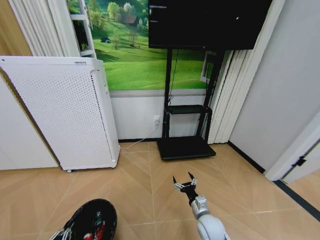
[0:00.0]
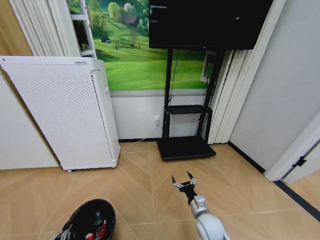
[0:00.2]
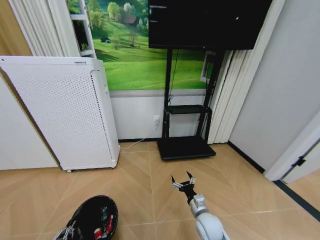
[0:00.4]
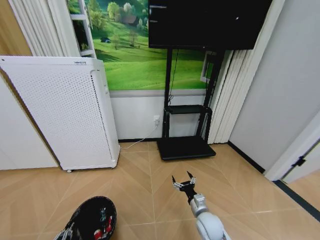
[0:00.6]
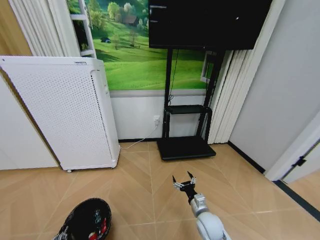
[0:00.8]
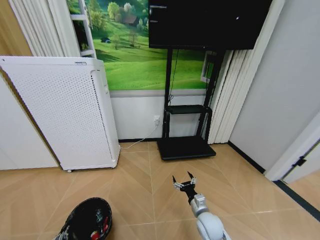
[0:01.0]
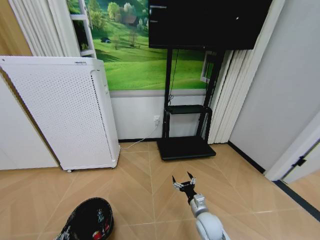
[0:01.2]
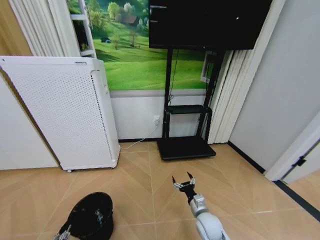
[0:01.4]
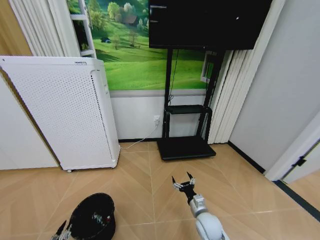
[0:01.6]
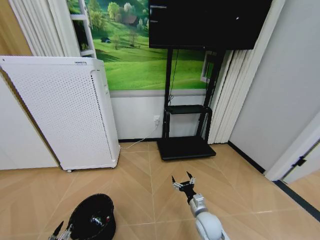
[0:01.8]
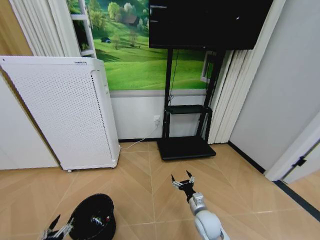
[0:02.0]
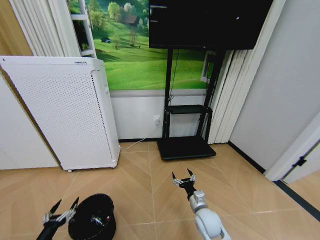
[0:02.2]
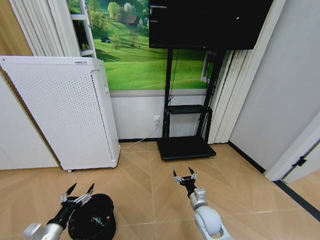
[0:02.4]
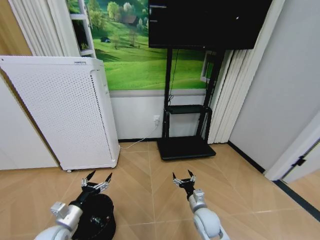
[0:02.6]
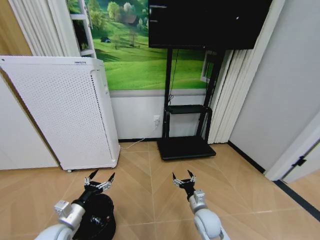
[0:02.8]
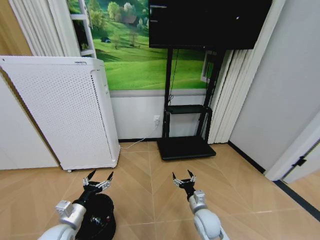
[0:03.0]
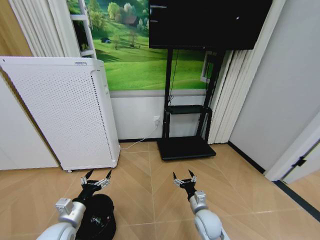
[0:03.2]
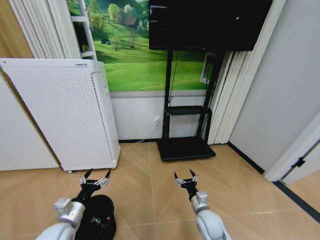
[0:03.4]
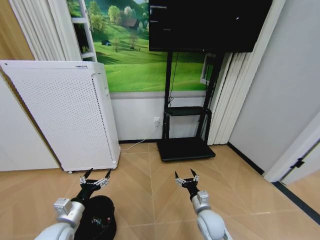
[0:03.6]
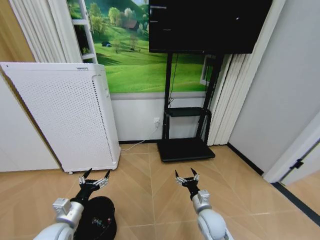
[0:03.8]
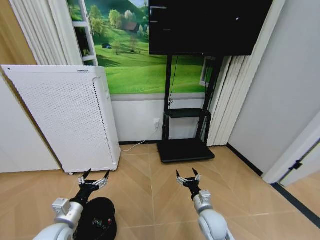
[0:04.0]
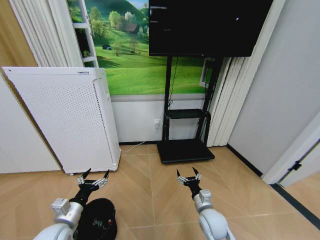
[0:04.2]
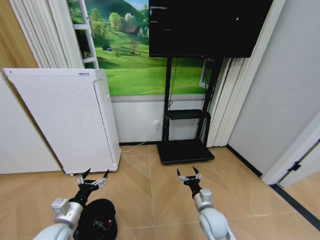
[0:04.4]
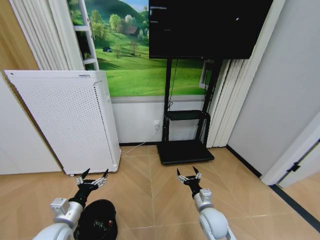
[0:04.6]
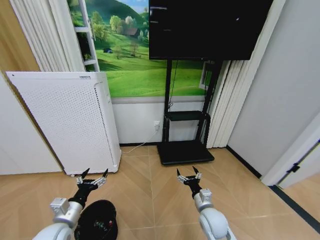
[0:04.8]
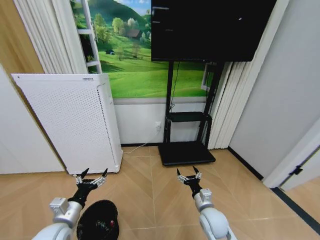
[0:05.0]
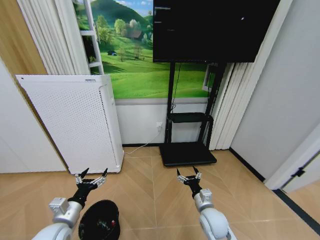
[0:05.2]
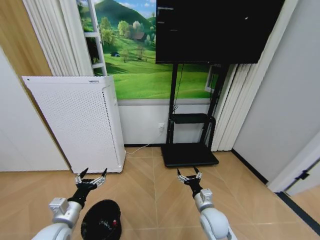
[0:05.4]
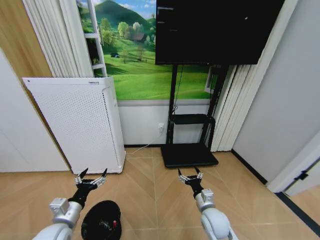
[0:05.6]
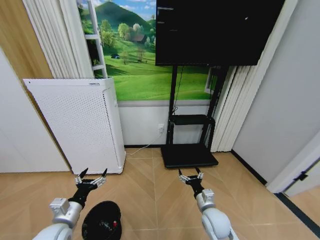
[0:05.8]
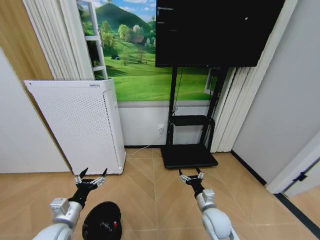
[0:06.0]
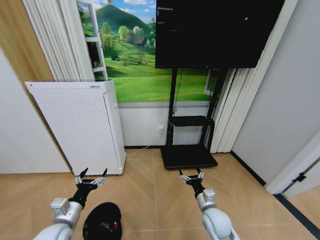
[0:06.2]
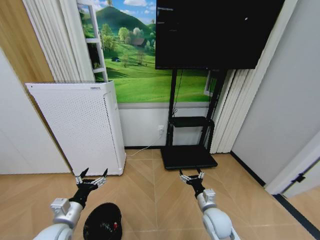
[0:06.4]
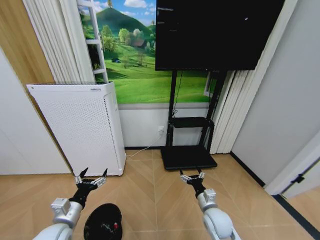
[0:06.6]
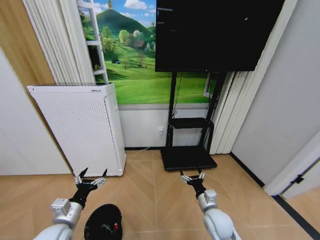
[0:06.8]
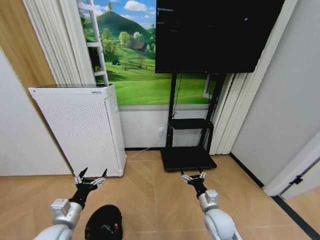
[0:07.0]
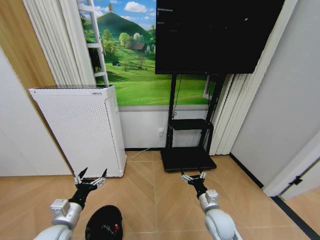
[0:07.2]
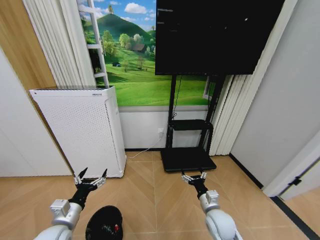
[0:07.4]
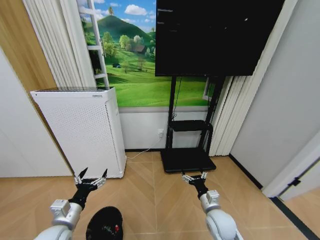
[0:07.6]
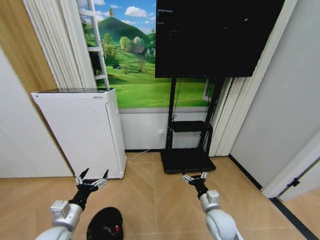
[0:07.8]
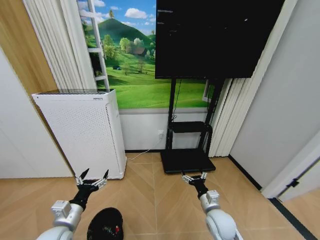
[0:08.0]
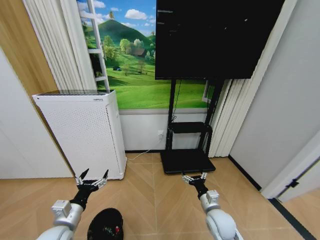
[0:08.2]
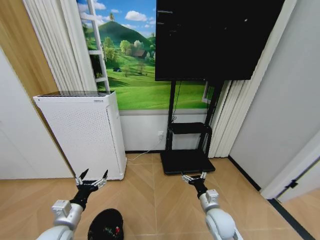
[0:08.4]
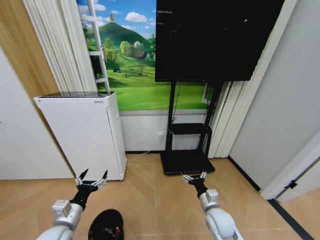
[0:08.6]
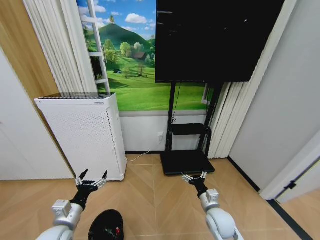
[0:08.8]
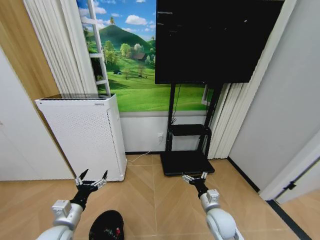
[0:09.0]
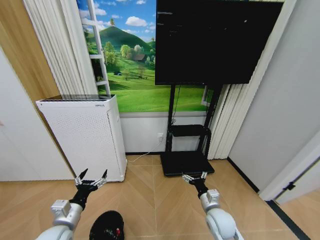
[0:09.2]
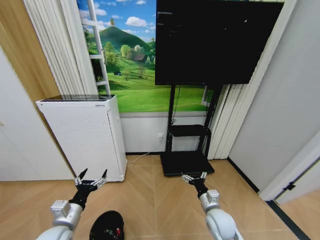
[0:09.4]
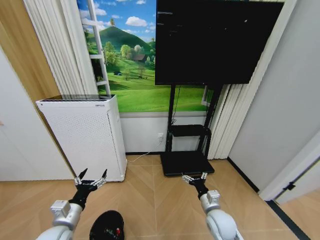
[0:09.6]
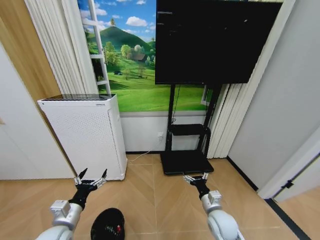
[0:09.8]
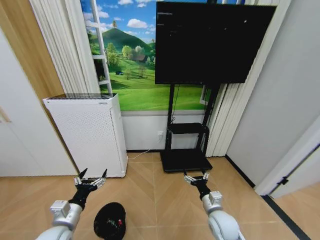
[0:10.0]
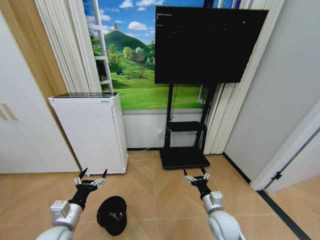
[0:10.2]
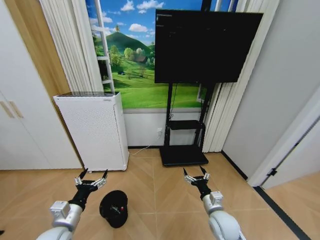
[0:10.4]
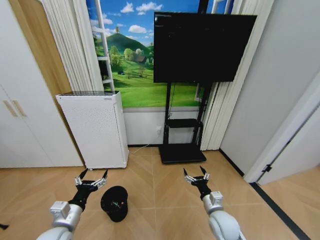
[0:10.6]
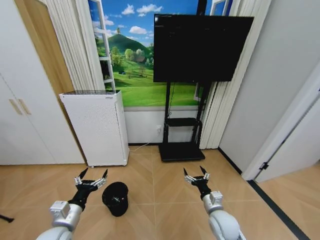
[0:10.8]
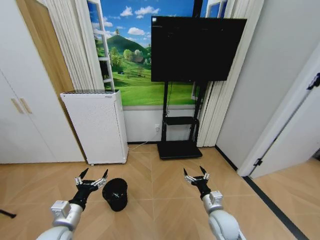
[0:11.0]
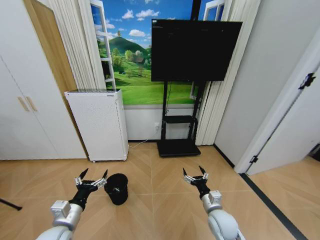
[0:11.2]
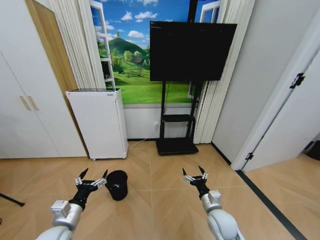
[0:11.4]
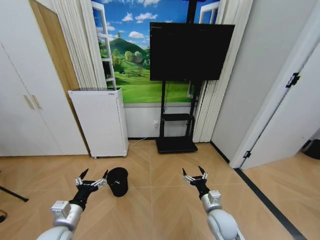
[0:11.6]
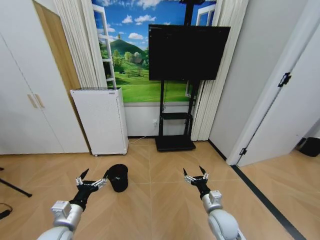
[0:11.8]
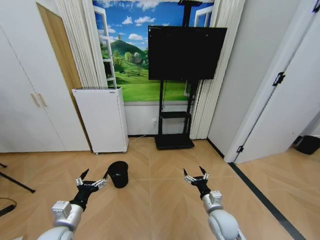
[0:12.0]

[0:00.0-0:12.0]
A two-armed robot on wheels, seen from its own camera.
Task of the whole recording: Pick up the trash bin and place the garbage on the floor into it.
0:00.0 to 0:01.6: The left gripper heads downward, covering about 10 cm, and opens up.
0:01.6 to 0:03.0: The left gripper travels upward, forward and to the right by approximately 30 cm, and opens up.
0:03.0 to 0:04.4: The grippers stay close to where they were, moving slightly.
0:06.0 to 0:07.6: The grippers make only small movements.
0:07.6 to 0:09.0: The two grippers keep their place.

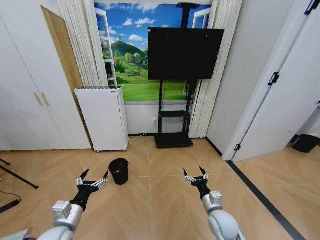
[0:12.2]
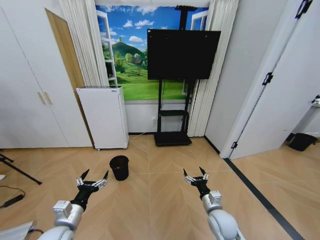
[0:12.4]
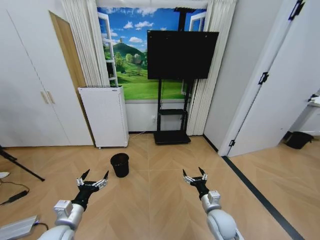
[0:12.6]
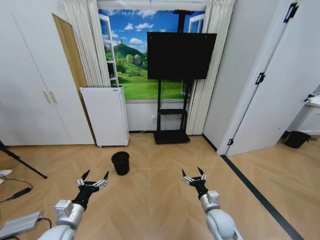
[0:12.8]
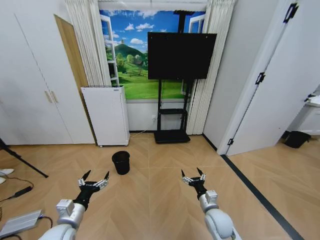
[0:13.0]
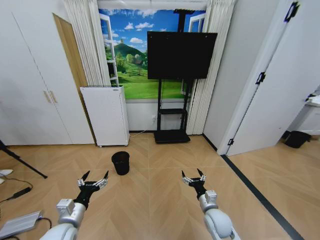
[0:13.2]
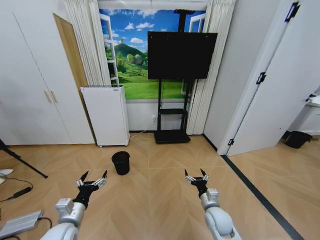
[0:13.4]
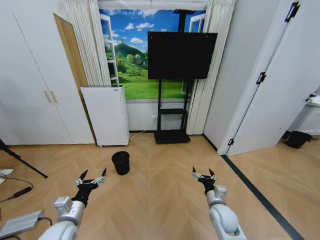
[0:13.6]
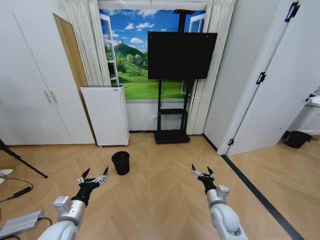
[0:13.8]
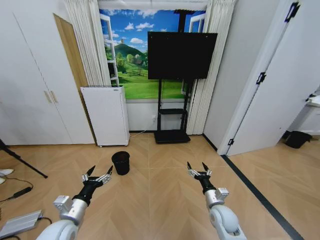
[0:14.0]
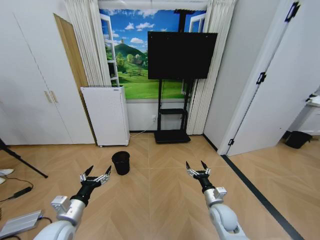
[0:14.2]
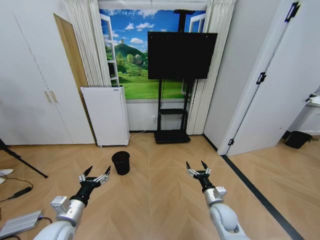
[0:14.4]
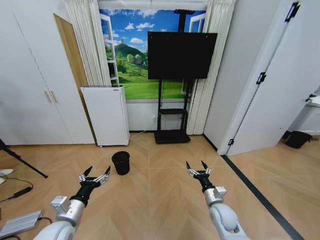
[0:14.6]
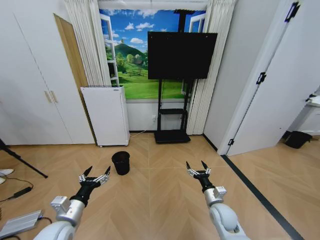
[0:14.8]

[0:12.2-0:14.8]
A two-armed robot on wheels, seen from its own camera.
Task of the whole recording: Pick up the trash bin and place the garbage on the floor into it.
0:13.4 to 0:14.8: The grippers make only small movements.

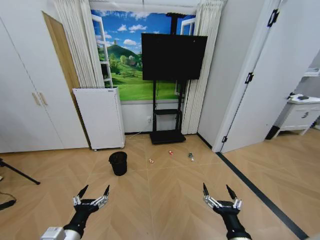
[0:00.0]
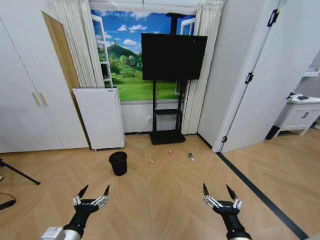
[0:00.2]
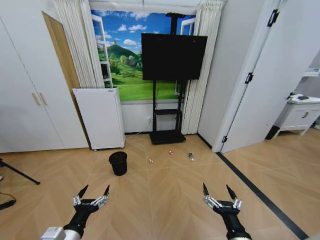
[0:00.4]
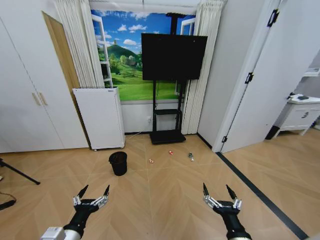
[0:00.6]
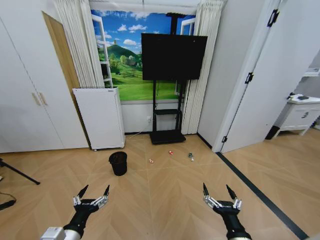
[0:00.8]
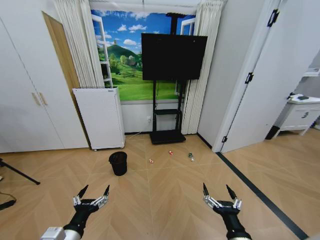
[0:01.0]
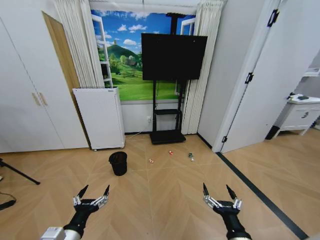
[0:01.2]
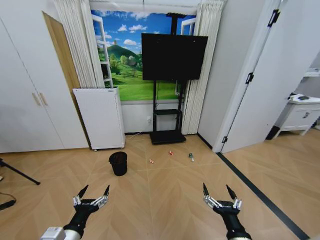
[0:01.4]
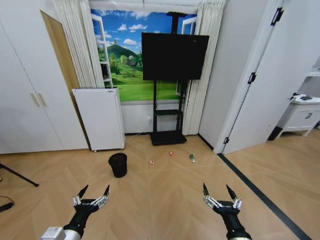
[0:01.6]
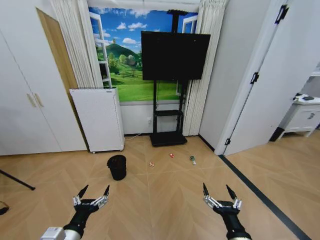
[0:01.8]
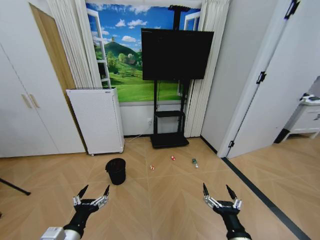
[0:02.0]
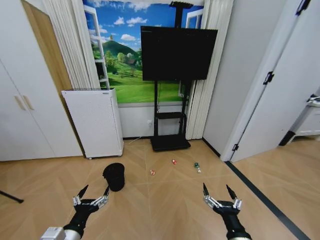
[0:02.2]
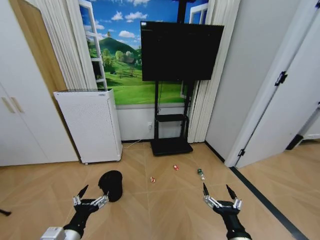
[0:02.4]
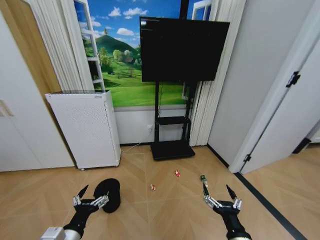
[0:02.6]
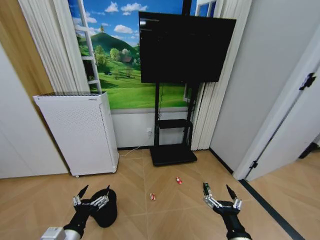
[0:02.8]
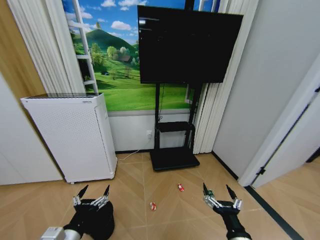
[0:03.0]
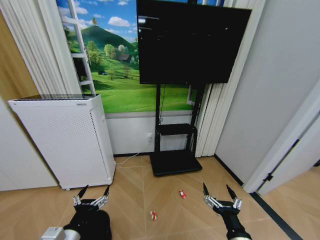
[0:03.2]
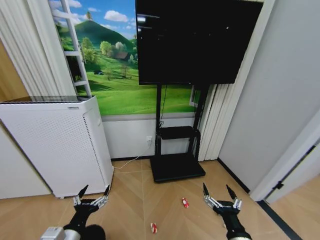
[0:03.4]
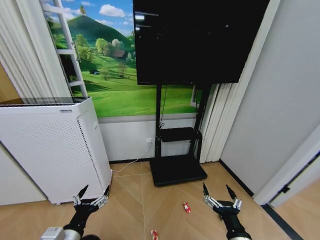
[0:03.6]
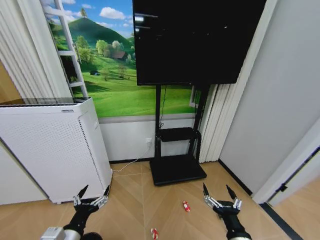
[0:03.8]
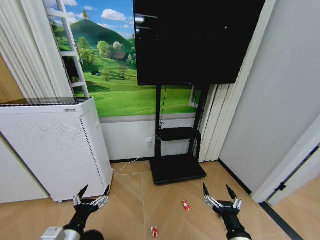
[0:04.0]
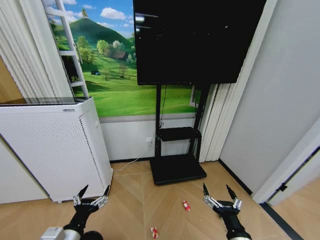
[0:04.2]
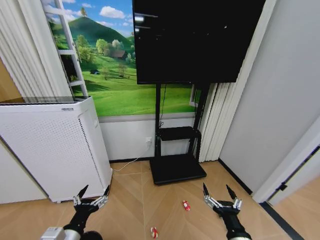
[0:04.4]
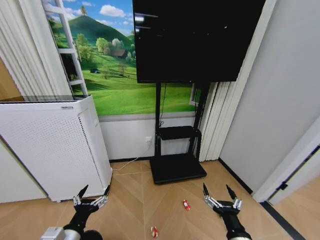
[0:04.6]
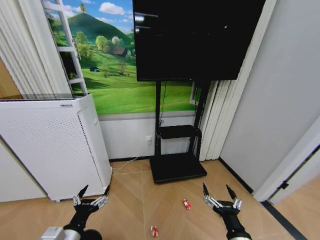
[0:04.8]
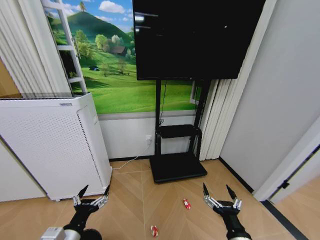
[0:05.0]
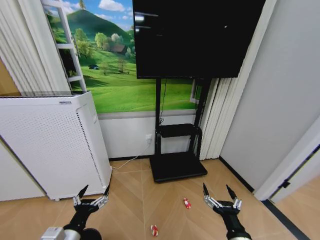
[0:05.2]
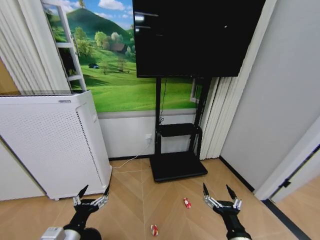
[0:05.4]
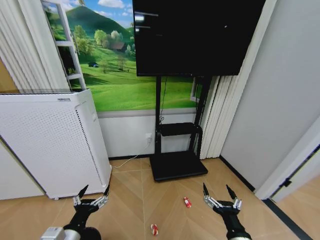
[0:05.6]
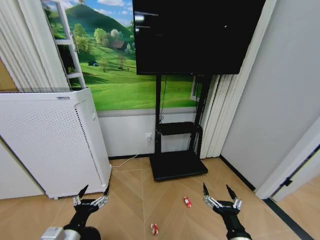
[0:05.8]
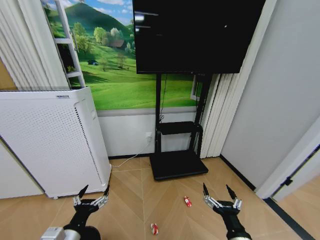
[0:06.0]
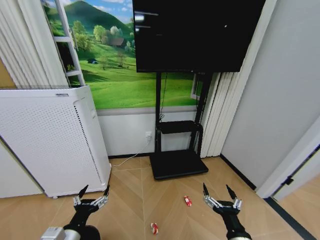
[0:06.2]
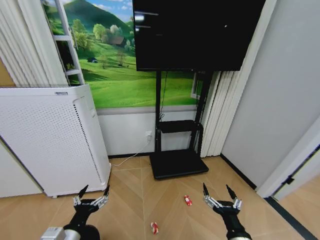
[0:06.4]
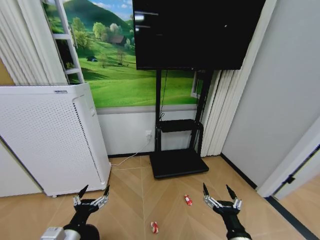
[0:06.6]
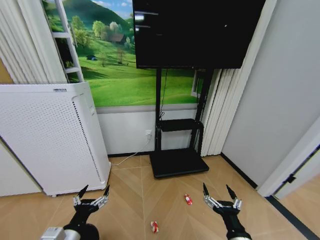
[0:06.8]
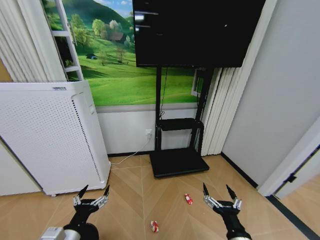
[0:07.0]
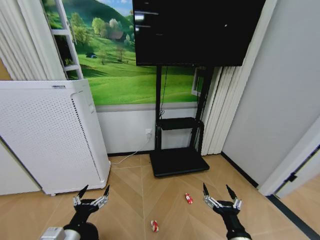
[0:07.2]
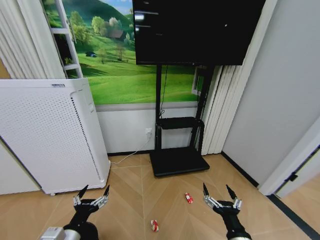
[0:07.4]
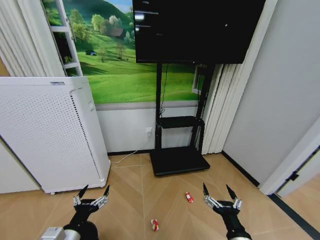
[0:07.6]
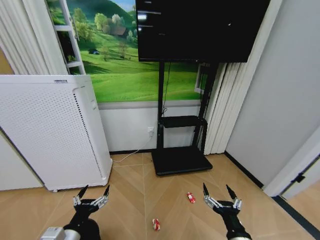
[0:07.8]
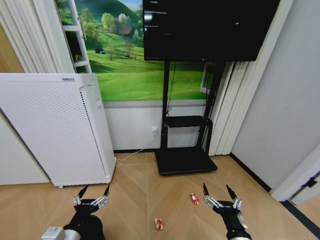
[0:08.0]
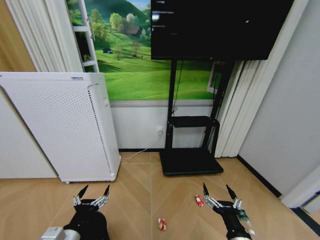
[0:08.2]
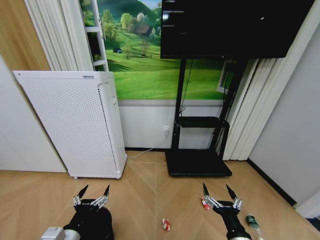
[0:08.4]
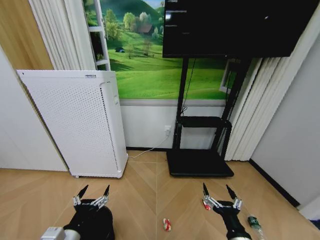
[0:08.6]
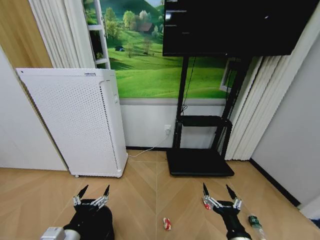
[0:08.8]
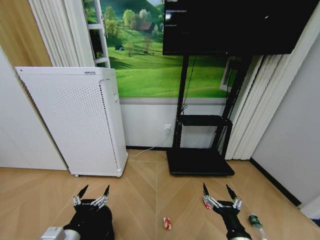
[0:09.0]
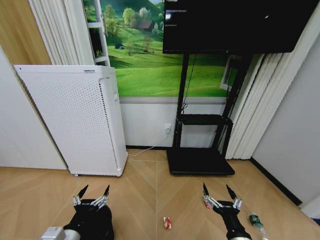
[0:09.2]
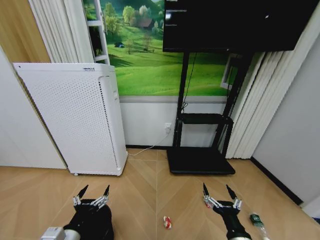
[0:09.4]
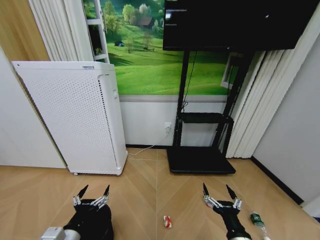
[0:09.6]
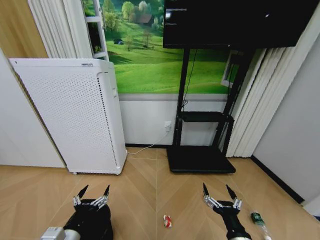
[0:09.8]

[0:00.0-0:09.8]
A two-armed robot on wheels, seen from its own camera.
Task of the whole recording: Pick up the trash bin and place the garbage on the floor into it.
0:04.2 to 0:07.0: Neither gripper changes place.
